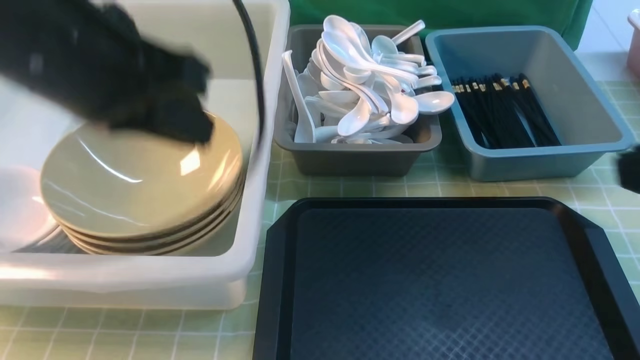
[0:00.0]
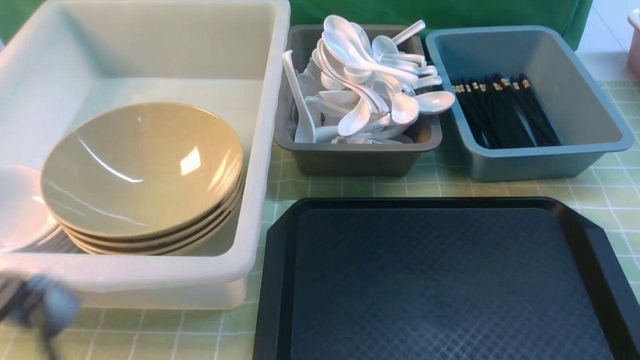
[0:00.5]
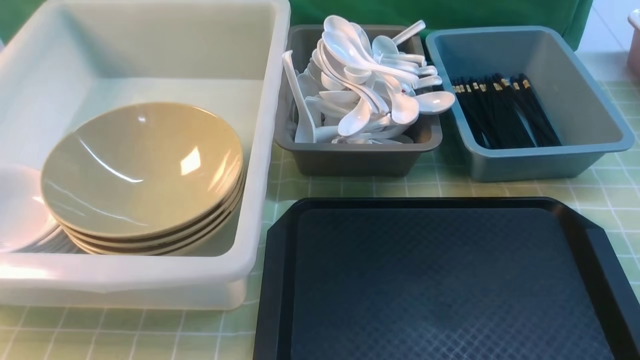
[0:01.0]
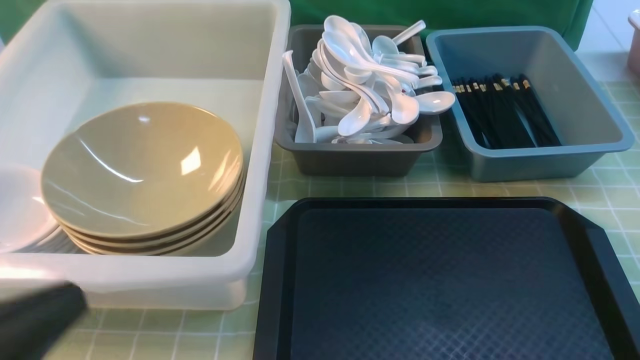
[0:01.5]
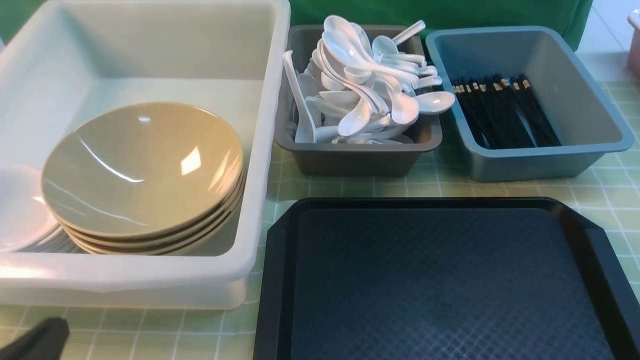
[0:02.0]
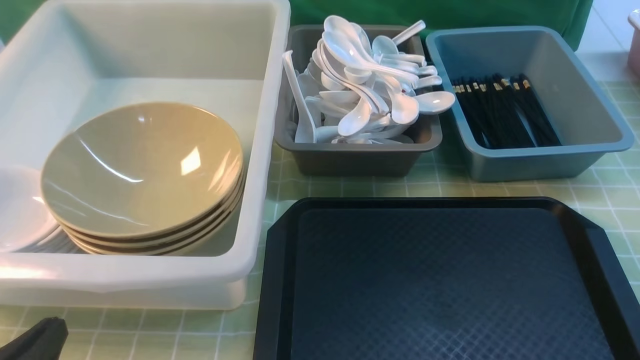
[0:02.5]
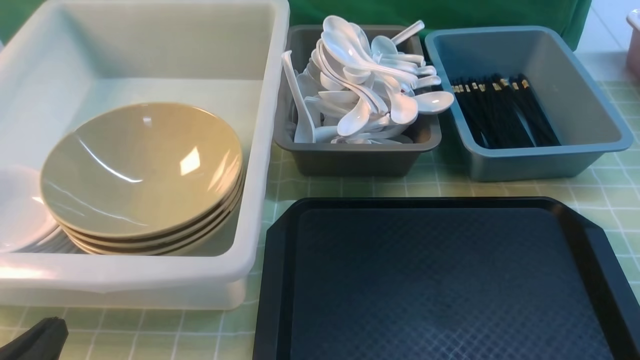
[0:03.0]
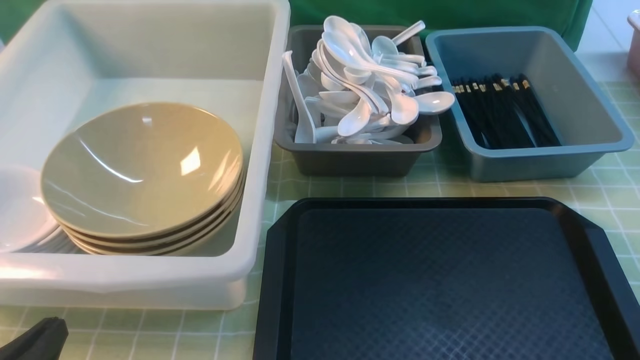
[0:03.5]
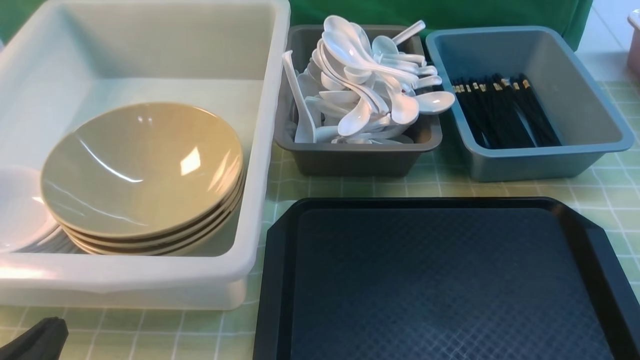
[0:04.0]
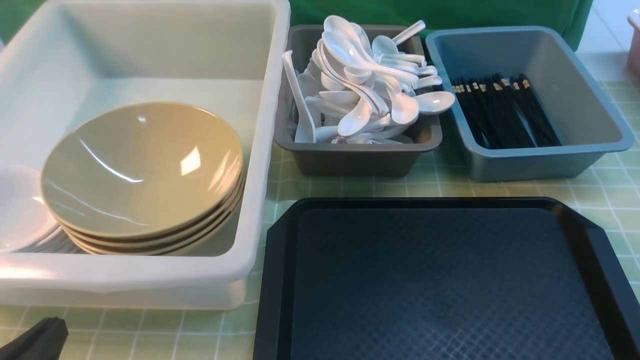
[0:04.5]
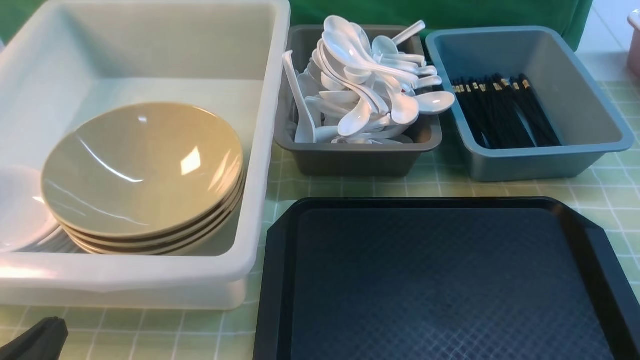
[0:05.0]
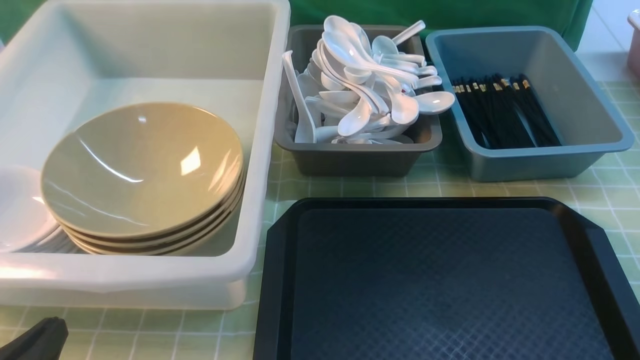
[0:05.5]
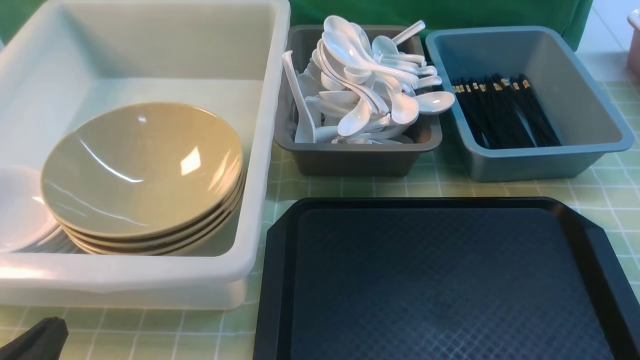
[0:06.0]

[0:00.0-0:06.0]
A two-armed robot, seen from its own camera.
Task of the whole recording: on green table put chopsticks spoon bowls plates into blue grey white boxes.
0:00.0 to 0:02.0: The left gripper moves downward, backward and to the left, about 25 cm. The right gripper shifts approximately 15 cm downward and backward.
0:04.0 to 0:06.0: Both grippers stay about where they are.
